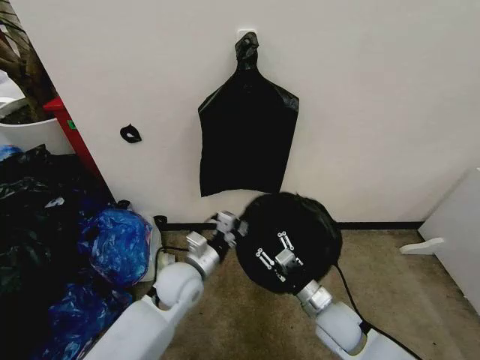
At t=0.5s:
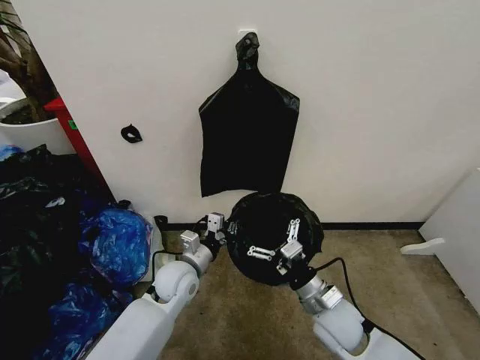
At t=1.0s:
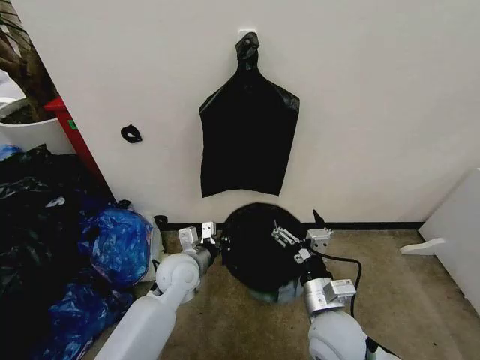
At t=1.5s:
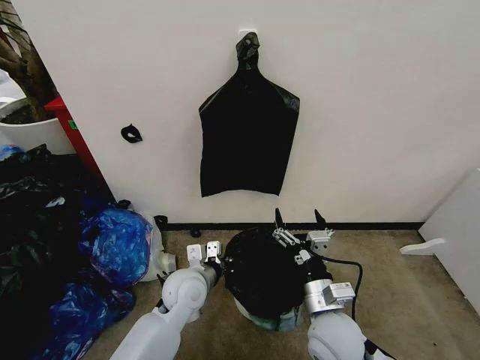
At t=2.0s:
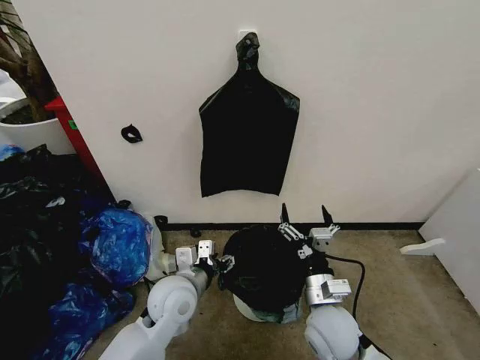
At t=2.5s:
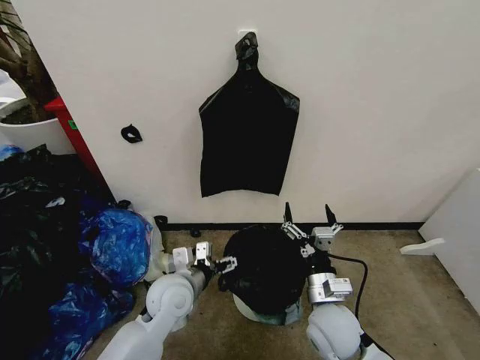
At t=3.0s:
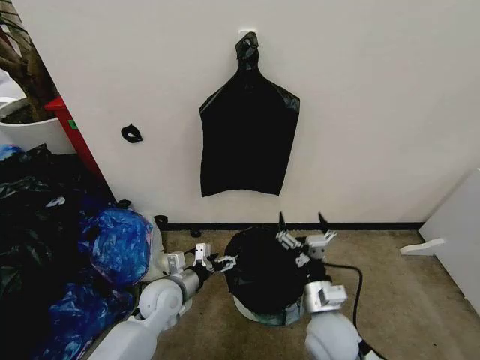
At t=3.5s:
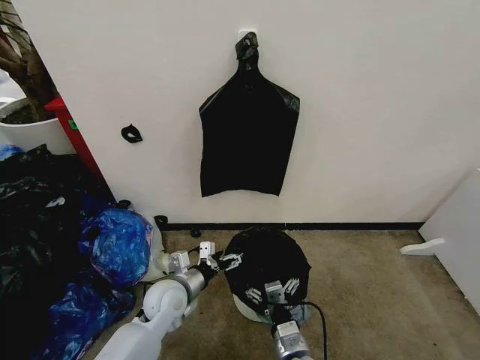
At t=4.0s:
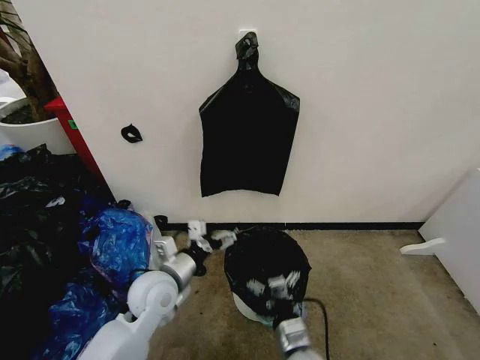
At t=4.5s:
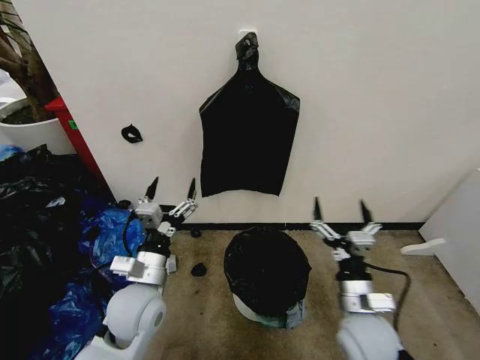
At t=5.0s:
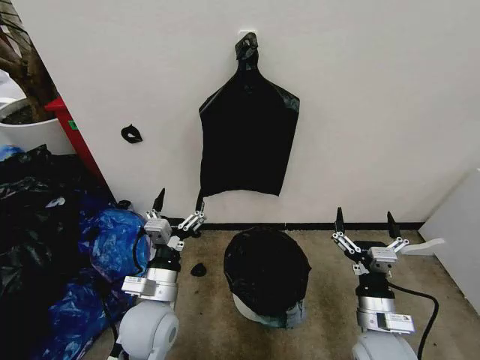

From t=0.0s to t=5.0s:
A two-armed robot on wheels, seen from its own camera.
Task of the whole recording: Place the garbage bag over the trash bin.
From t=0.0s to t=2.5s: The right gripper is displaced upward by some 5 cm, and opens up. The left gripper opens its fingers.
From t=2.5s to t=5.0s: The left gripper is displaced backward by approximately 5 cm, and moves some 5 cm downward and comes back. The right gripper heads to the right, covering about 10 cm.
